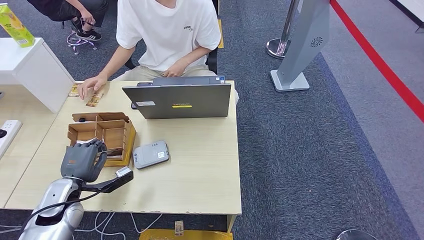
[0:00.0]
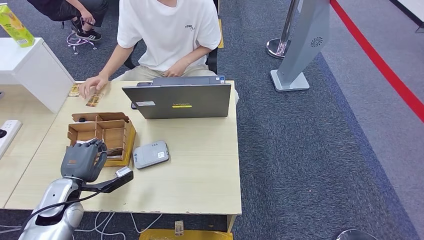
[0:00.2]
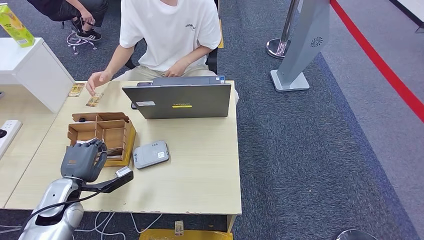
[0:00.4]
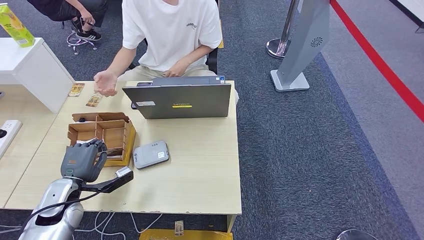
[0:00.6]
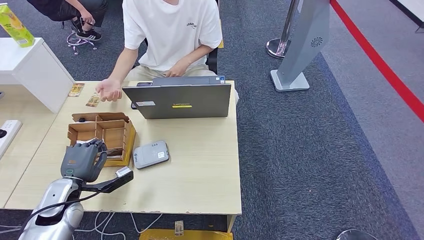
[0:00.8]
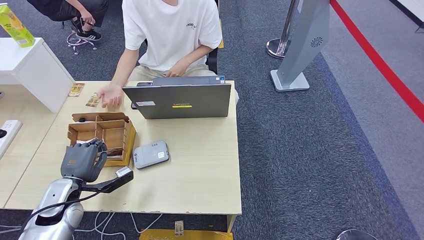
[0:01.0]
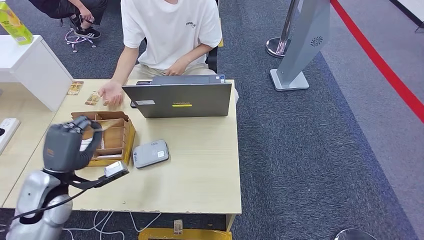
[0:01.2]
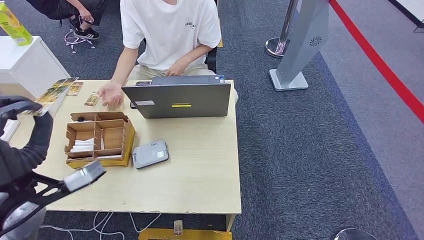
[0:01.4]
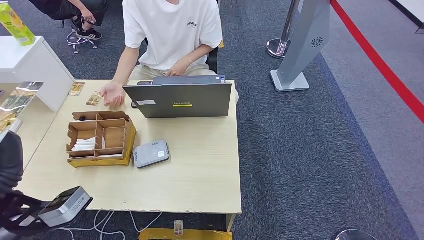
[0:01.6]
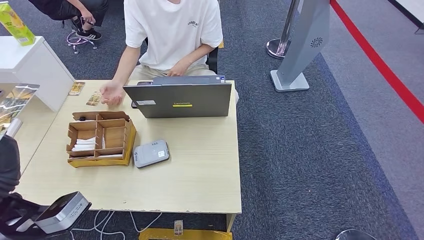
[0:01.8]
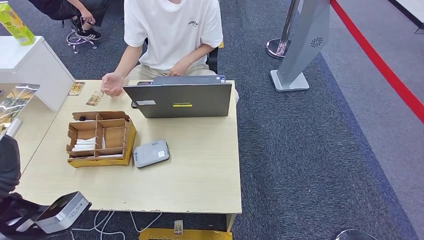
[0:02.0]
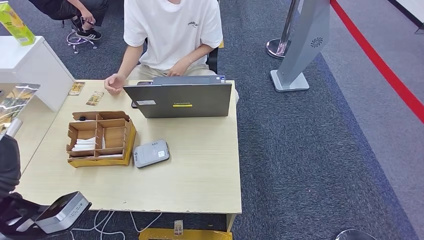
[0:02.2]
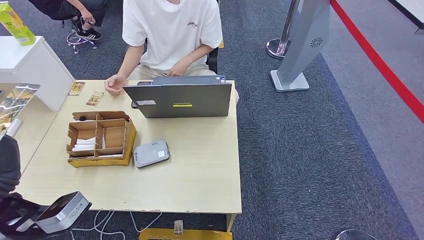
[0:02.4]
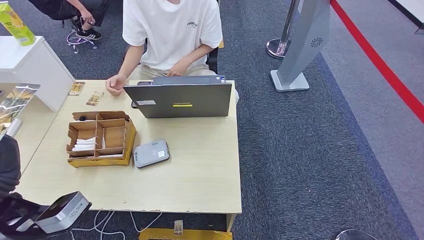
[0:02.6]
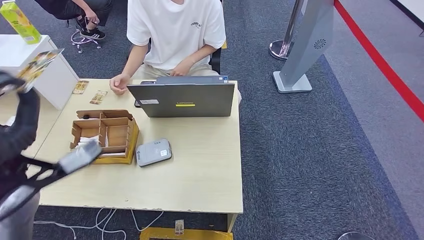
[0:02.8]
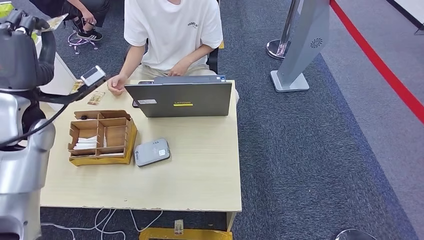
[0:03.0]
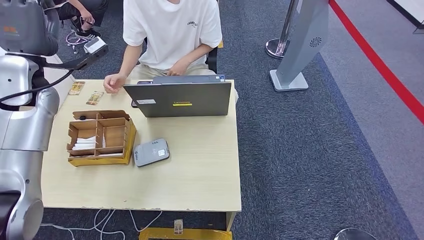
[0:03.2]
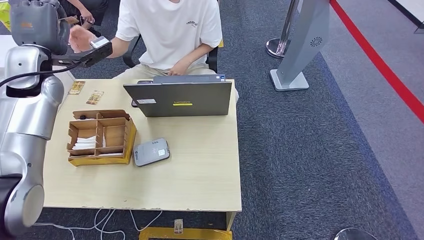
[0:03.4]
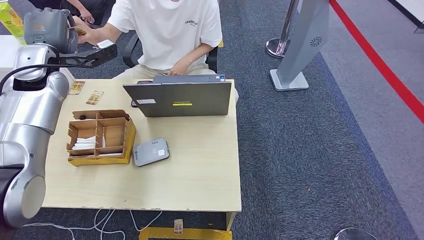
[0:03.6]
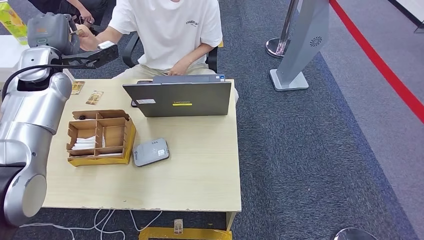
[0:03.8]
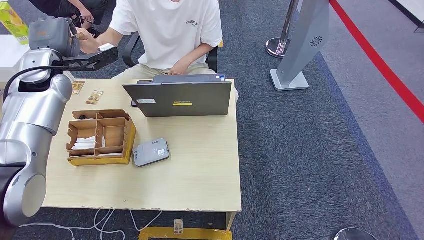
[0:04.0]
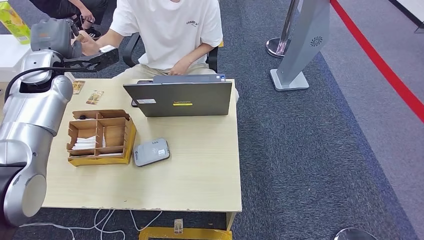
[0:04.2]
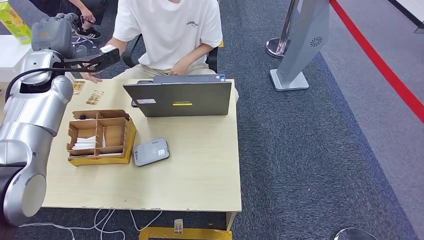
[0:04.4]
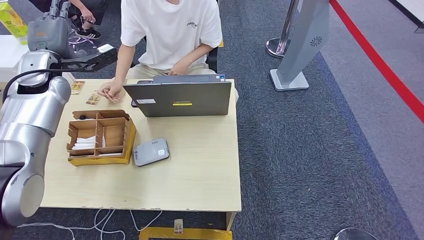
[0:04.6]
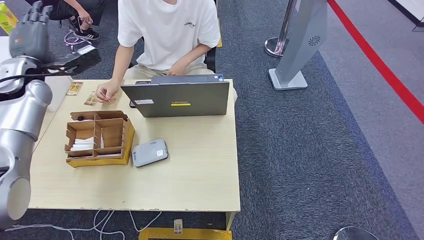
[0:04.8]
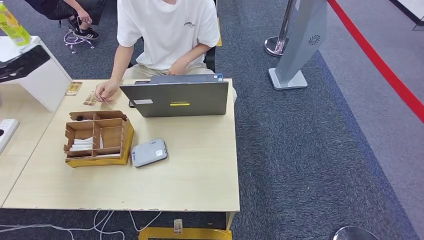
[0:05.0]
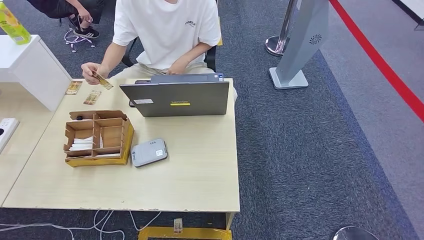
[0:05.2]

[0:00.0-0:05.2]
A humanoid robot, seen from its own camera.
Step, 0:00.0 to 0:05.2: Hand the room key to the person.
0:00.0 to 0:01.8: The left hand shifts roughly 20 cm upward.
0:01.8 to 0:03.4: The left hand goes roughly 25 cm forward.
0:03.4 to 0:05.2: The left hand shifts about 25 cm to the left.
